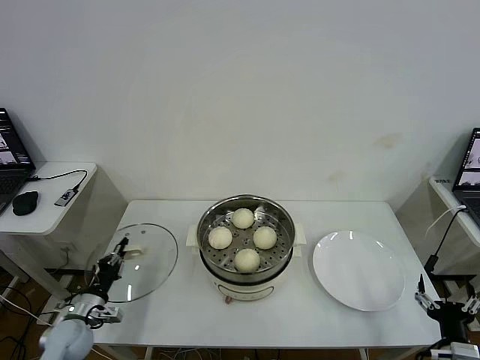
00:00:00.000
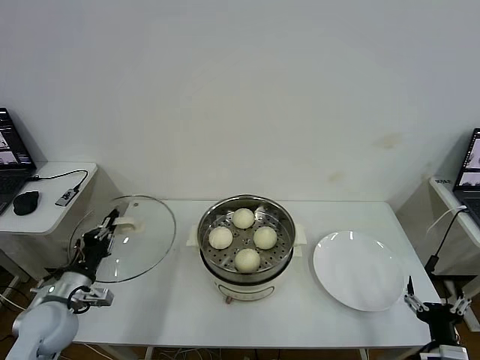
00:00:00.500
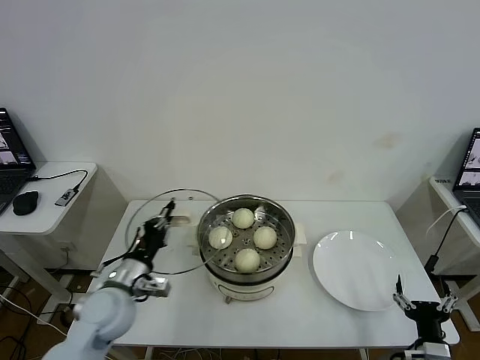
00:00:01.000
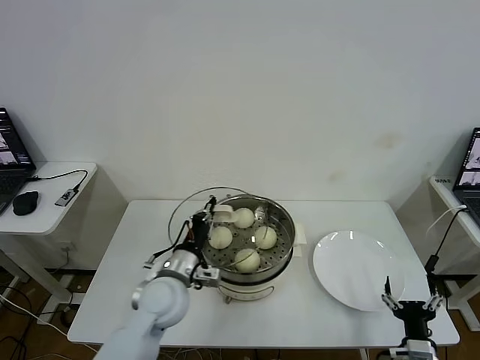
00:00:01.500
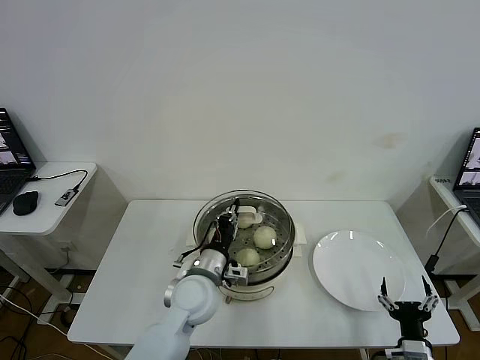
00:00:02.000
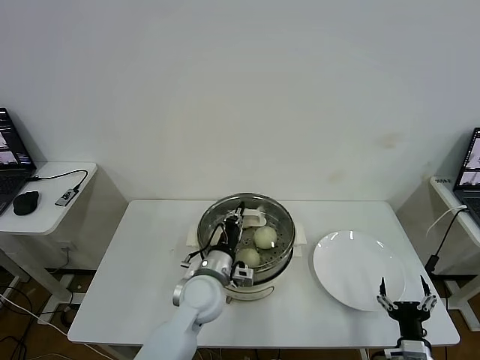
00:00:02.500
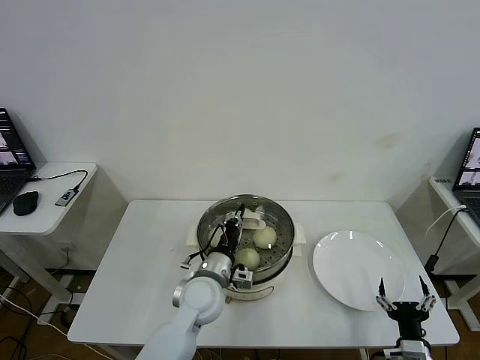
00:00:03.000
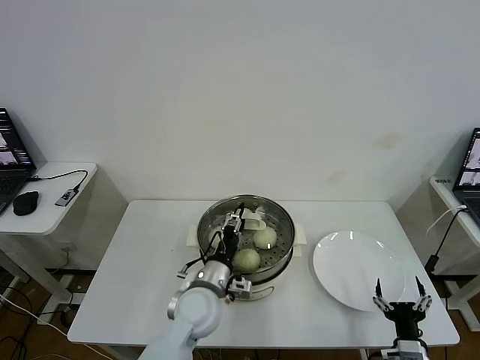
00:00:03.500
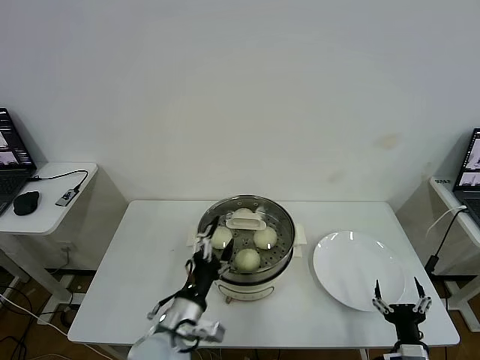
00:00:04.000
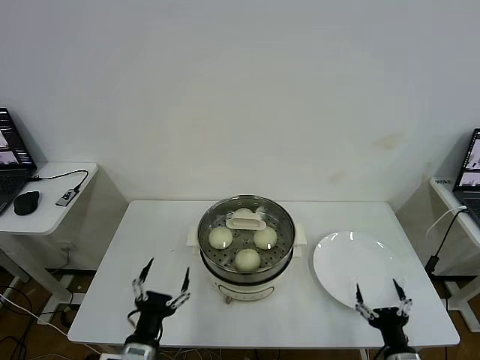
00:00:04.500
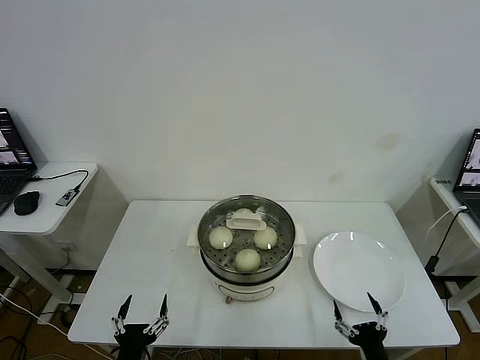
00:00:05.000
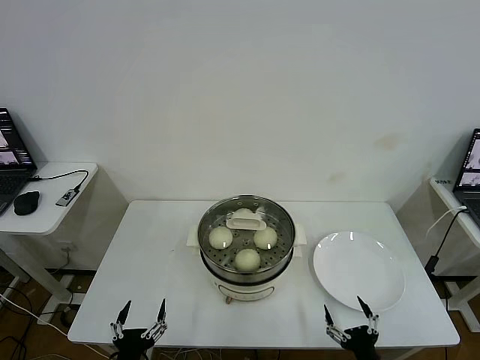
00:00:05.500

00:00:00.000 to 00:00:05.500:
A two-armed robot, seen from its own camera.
Task of the whole recording: take steamed baozi put them in steamer then cover it.
Step, 00:00:00.000 to 00:00:03.500: Place the pot lid on the steamer with left gripper.
00:00:00.000 to 00:00:02.000: The right gripper travels to the left by about 5 cm, while the left gripper is displaced to the right and upward by some 35 cm.
00:00:02.000 to 00:00:03.500: The left gripper opens up.
00:00:03.500 to 00:00:05.500: The right gripper goes about 5 cm backward, while the left gripper heads backward and to the left, covering approximately 25 cm, and opens up.
